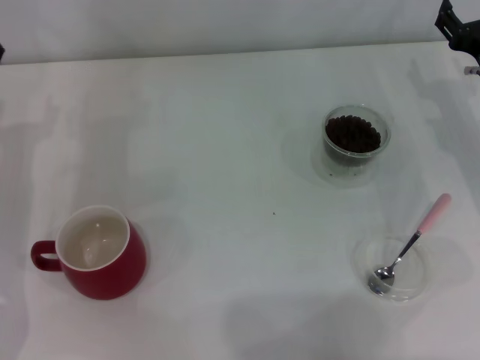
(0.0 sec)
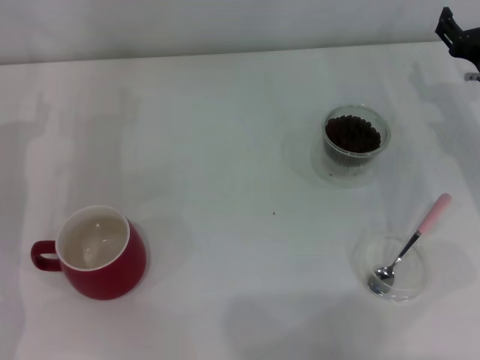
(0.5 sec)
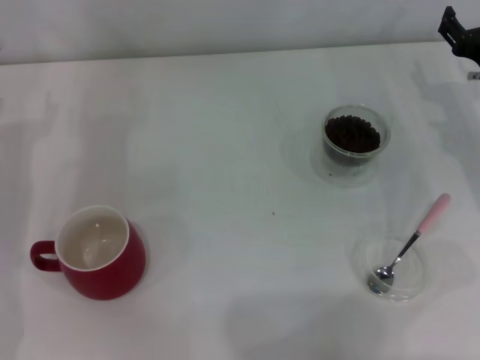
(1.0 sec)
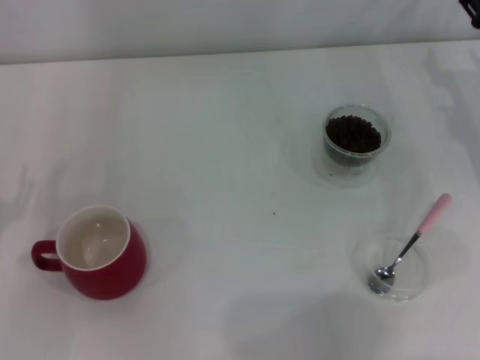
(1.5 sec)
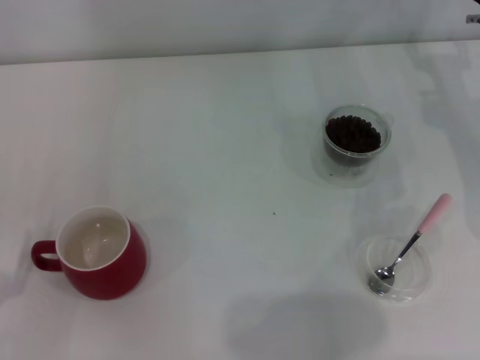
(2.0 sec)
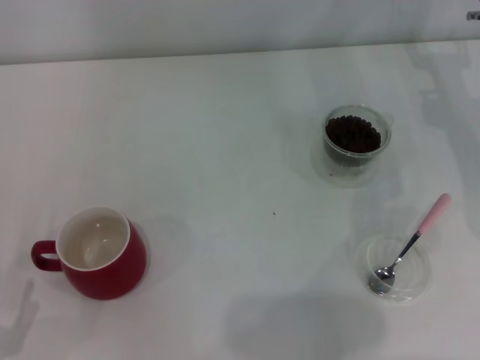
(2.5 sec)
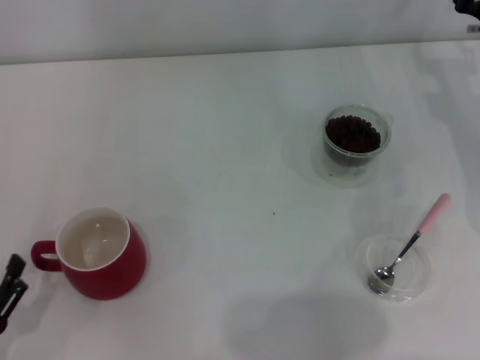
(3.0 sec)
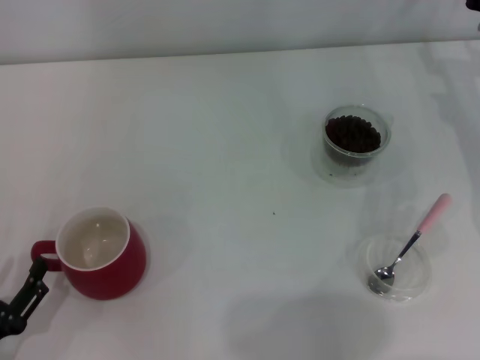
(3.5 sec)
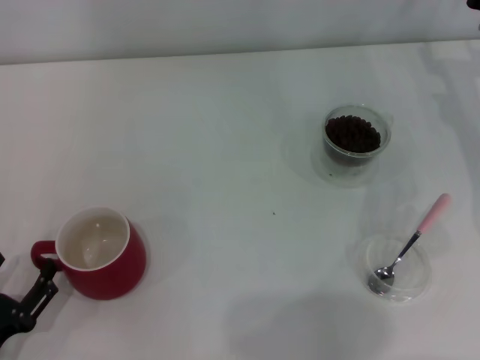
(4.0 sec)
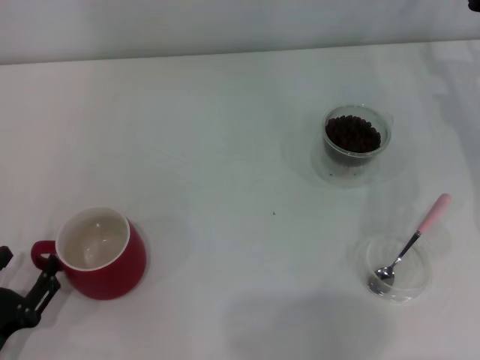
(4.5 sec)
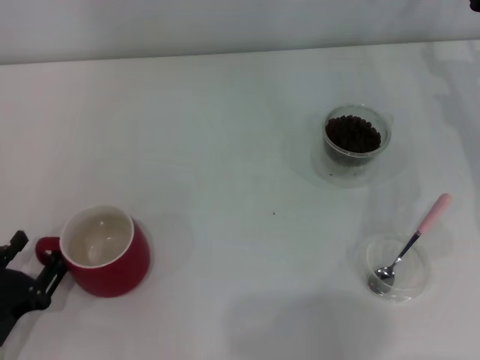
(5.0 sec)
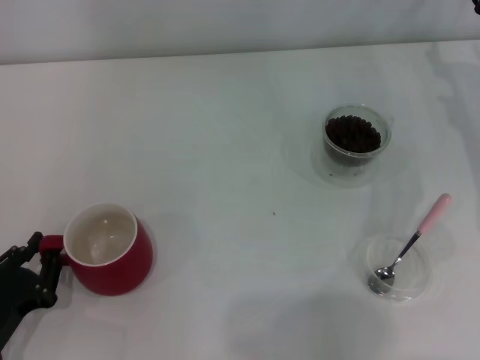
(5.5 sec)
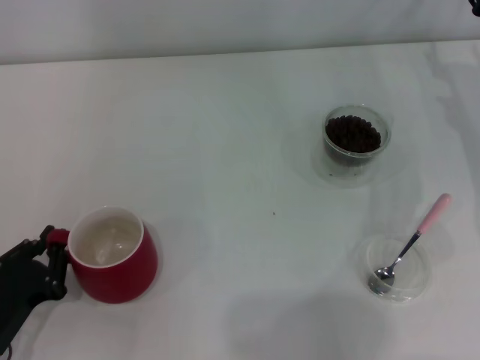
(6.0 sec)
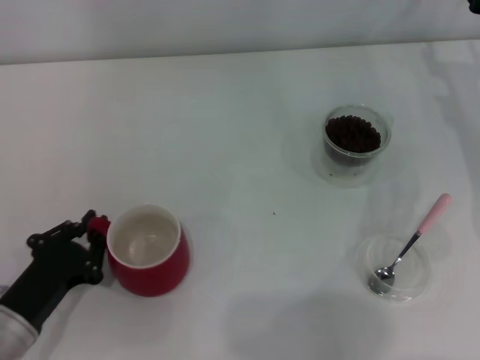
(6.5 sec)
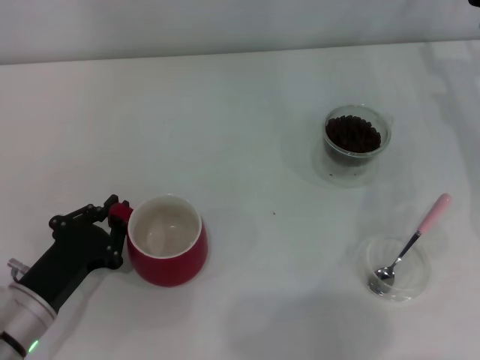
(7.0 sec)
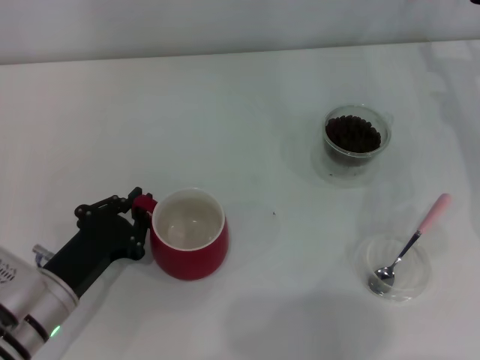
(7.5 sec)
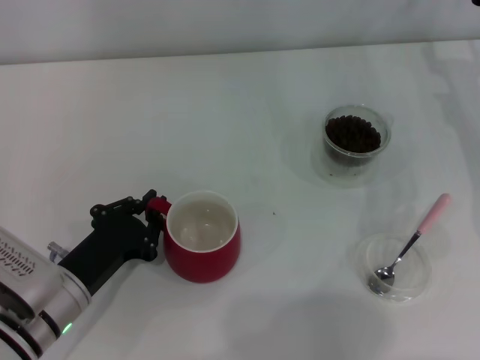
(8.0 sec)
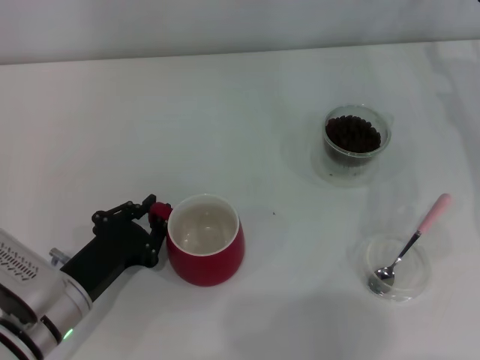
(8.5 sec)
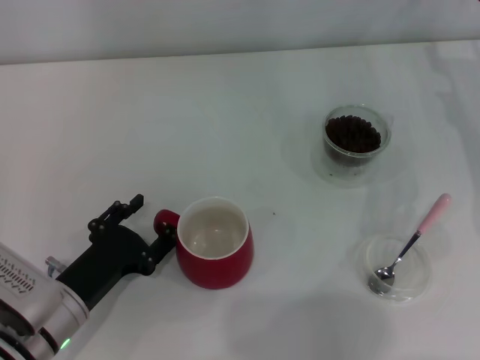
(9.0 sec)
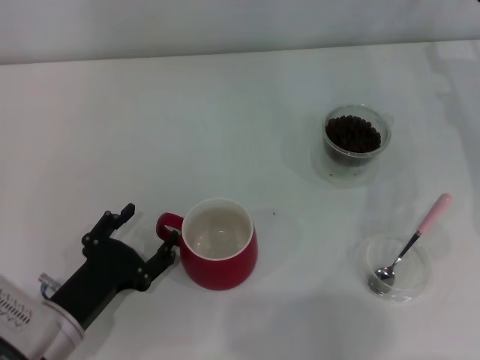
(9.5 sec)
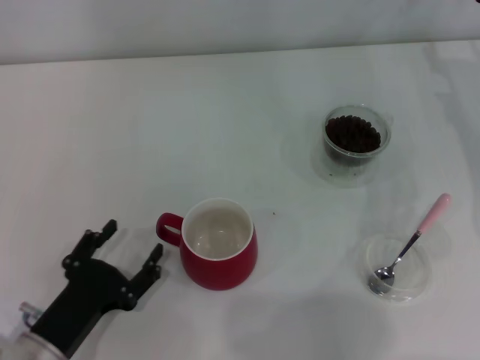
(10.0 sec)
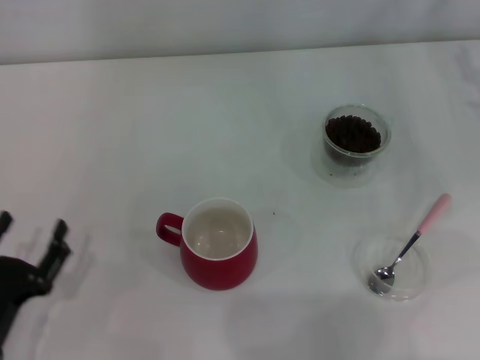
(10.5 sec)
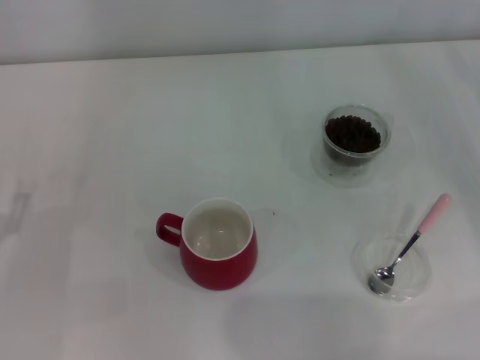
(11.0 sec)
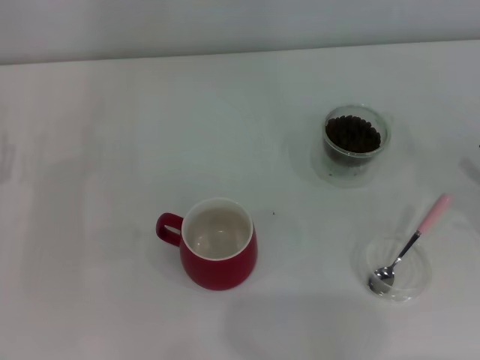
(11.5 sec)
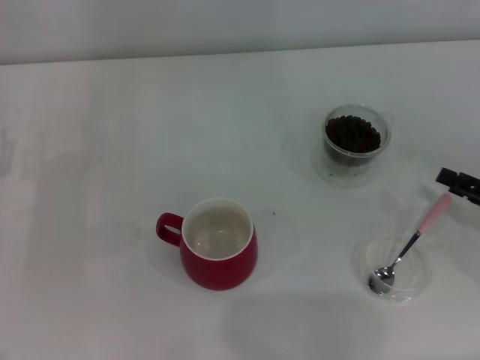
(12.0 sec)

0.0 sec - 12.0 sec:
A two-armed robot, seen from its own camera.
Task of the whole recording: Use a pink spoon to take out the coffee beans from the glass and pour them into the red cup.
Step, 0.0 sec - 10.0 sec: Move the cup to the center of view with the left gripper.
0.0 sec - 2.0 sec: The right gripper shifts by approximately 5 cm.
4.0 sec - 6.0 sec: The left gripper closes.
6.0 sec - 8.0 sec: The left gripper shifts roughly 10 cm to the right and forward.
8.0 sec - 10.0 sec: The left gripper moves backward, approximately 5 cm, and opens up.
10.0 sec - 12.0 sec: The right gripper moves backward, some 20 cm. The left gripper shifts about 15 cm forward, to the left and upward.

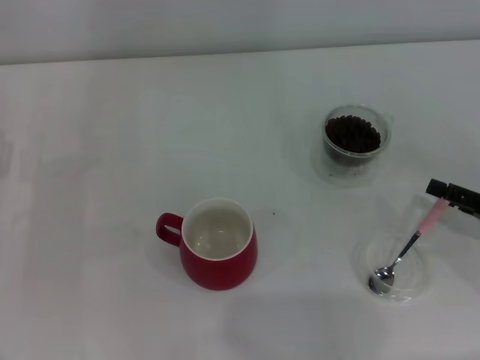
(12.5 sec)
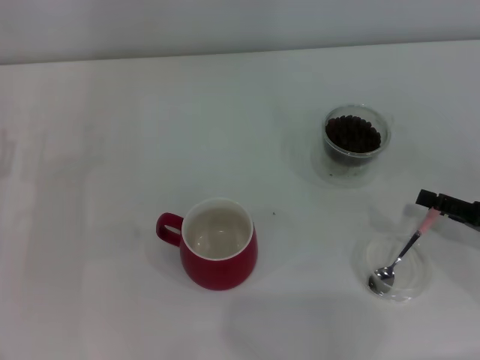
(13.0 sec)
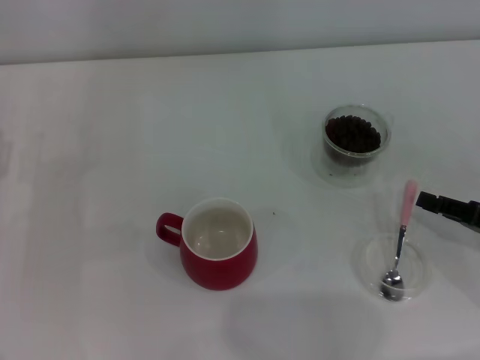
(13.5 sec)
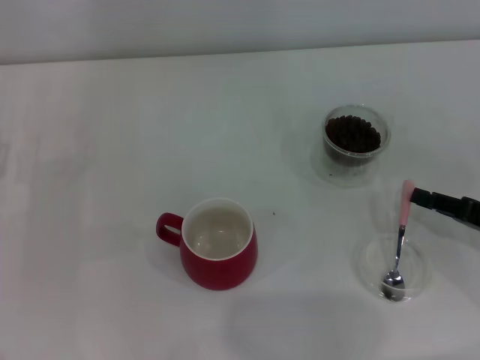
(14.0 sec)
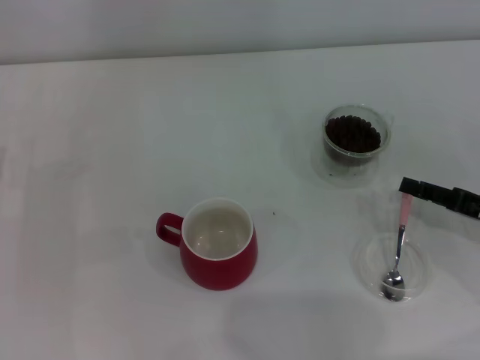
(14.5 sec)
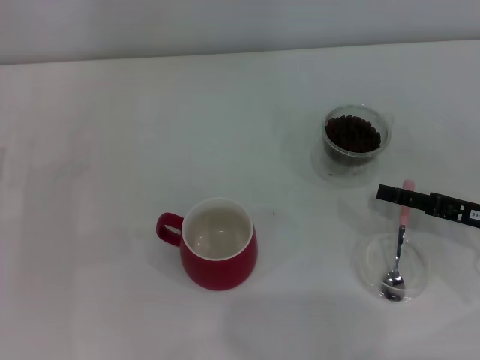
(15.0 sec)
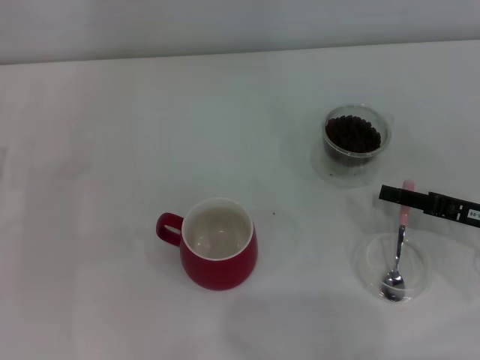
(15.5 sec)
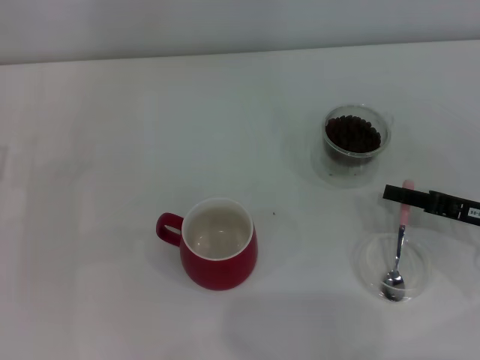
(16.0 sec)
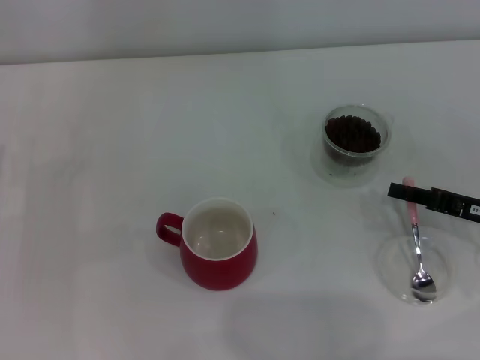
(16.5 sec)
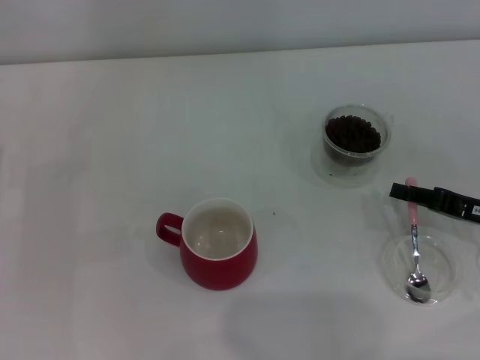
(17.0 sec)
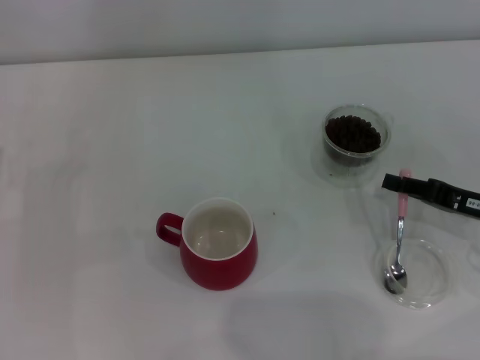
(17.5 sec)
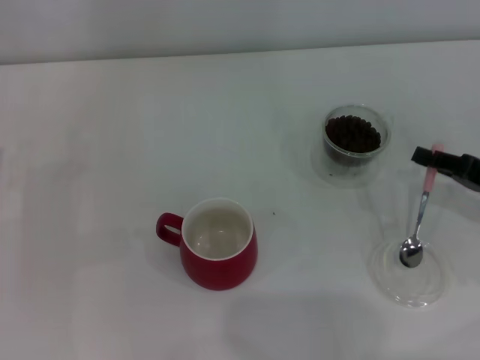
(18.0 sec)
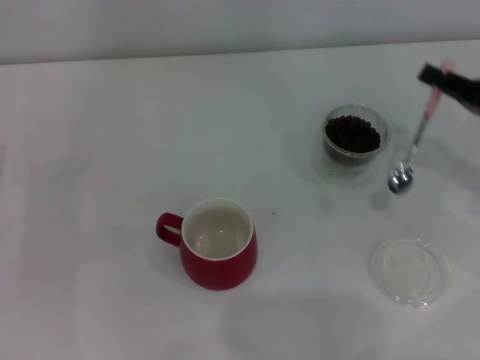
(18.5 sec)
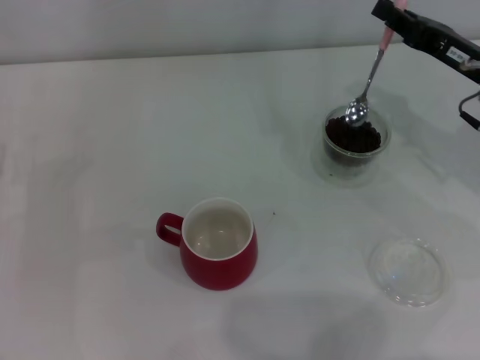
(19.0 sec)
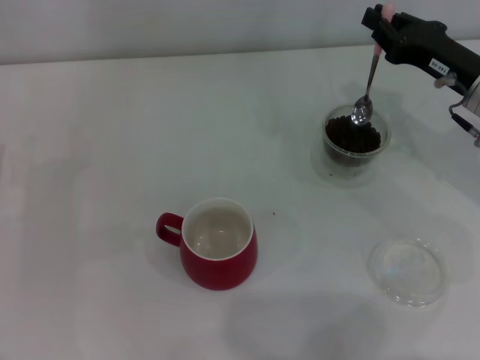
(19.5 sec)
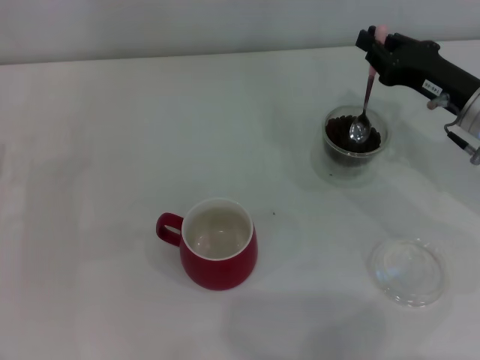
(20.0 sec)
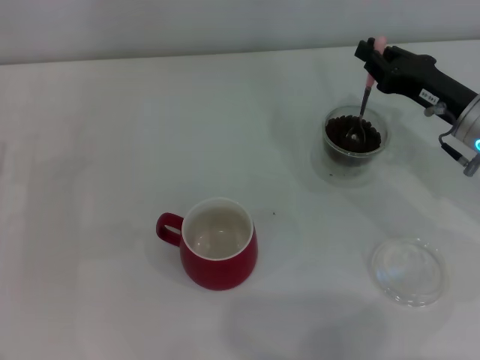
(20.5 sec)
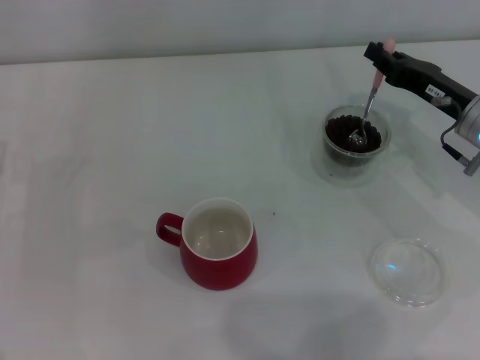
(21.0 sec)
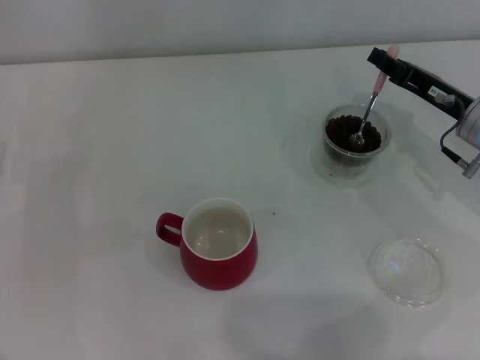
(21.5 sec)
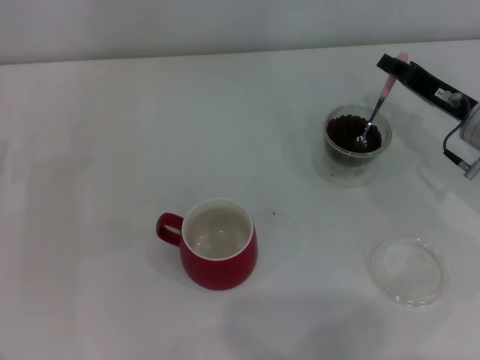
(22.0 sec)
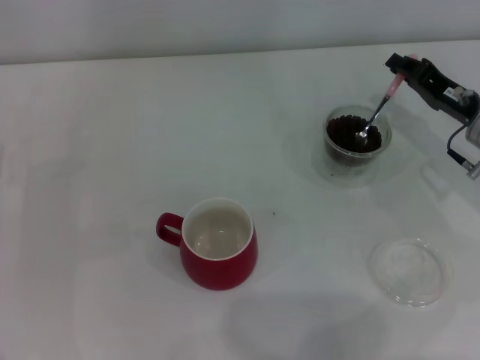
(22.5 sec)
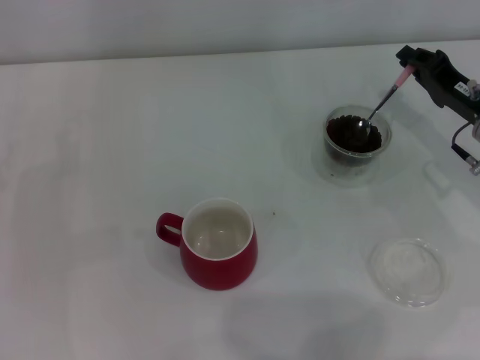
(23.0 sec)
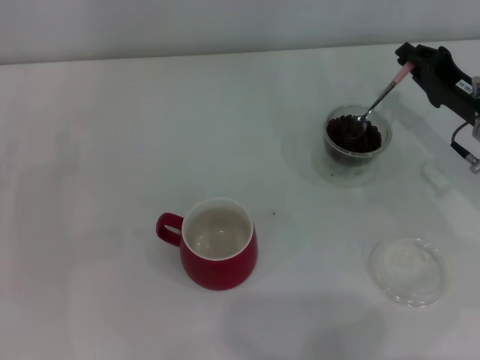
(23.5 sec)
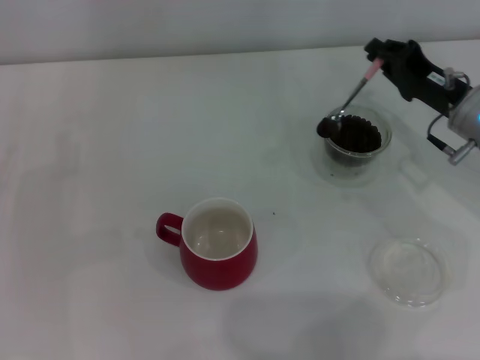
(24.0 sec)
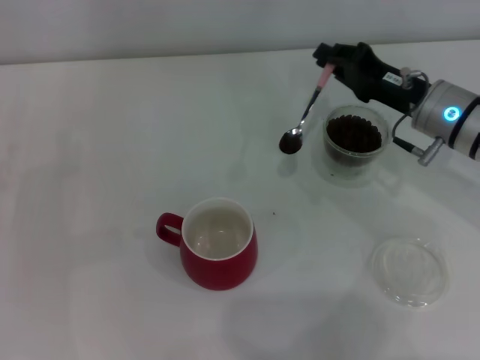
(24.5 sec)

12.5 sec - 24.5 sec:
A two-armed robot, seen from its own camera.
Task of the whole recording: Use a pink spoon to take out the coffee beans from the glass and pour them into the red cup.
Step, 12.5 sec - 18.0 sec: Pick up the spoon with the right gripper.
12.5 sec - 14.5 sec: The right gripper closes up.
14.5 sec - 16.5 sec: The right gripper opens, then closes once more.
16.5 sec - 18.5 sec: The right gripper moves upward, some 5 cm.
18.5 sec - 20.5 sec: The right gripper goes about 10 cm to the left and forward.
22.5 sec - 24.5 sec: The right gripper moves to the left, approximately 5 cm.

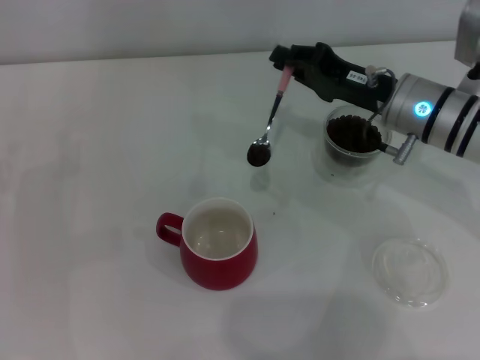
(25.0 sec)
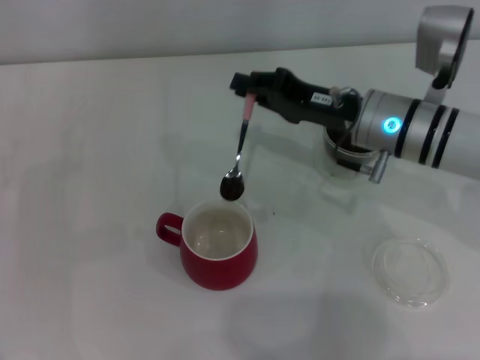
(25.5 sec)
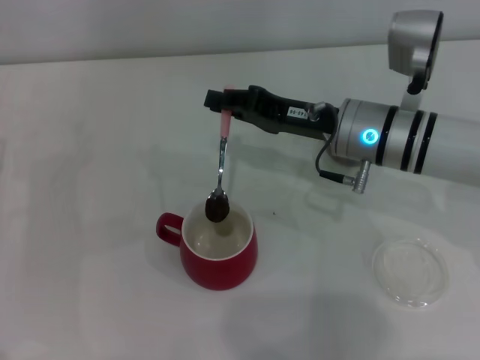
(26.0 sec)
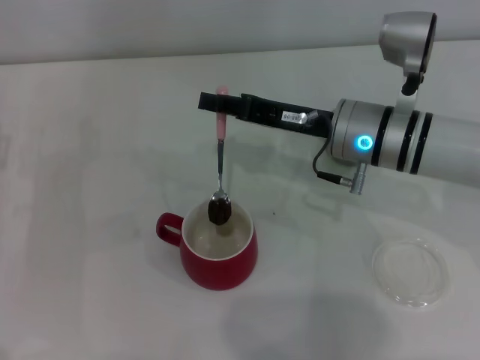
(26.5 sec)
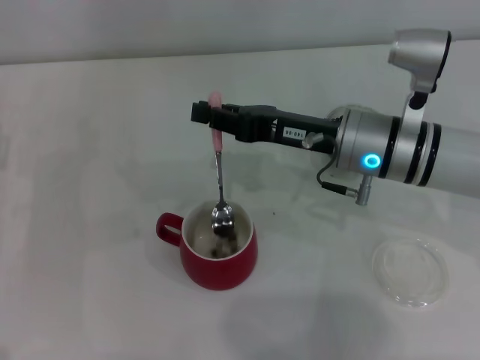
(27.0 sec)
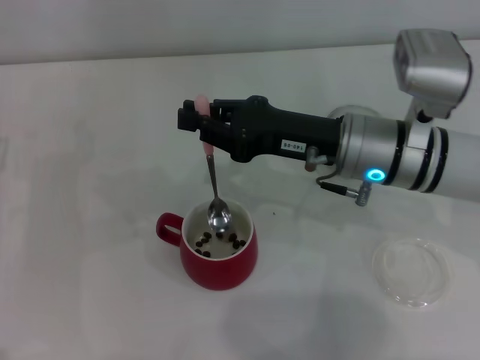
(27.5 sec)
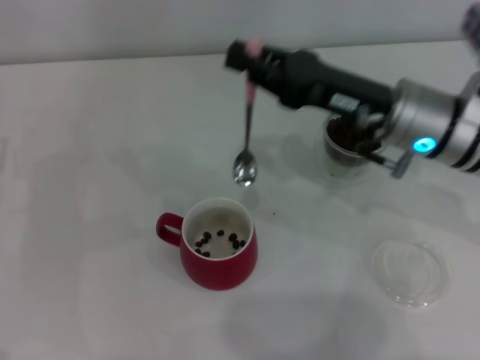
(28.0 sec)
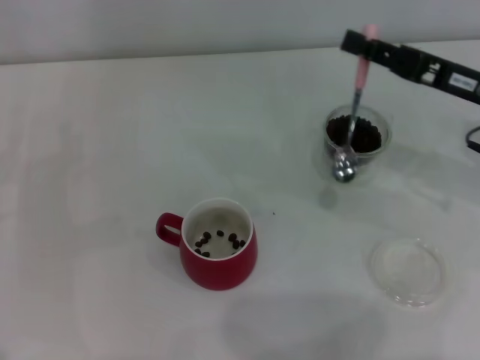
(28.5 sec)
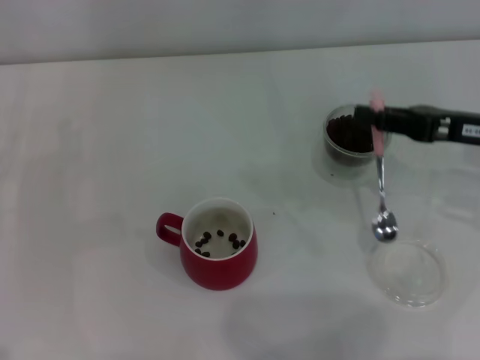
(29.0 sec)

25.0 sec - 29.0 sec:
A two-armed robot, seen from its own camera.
Task of the whole recording: Use a pink spoon to take out the coffee beans from the glass and pour them into the red cup.
Step, 25.0 sec - 27.5 sec: Scoop a spoonful of beans into the cup with the right gripper.
25.0 sec - 27.0 sec: The right gripper shifts roughly 5 cm to the left.
27.0 sec - 29.0 sec: The right gripper is displaced to the right by about 15 cm.
